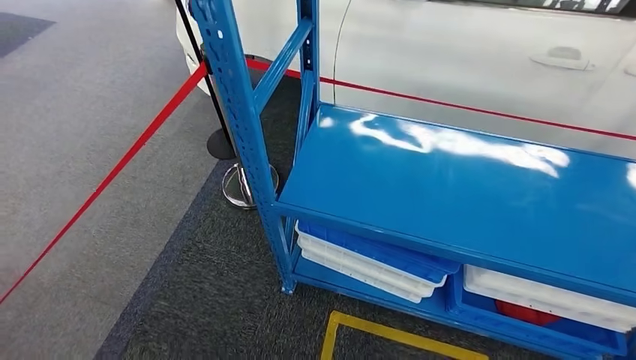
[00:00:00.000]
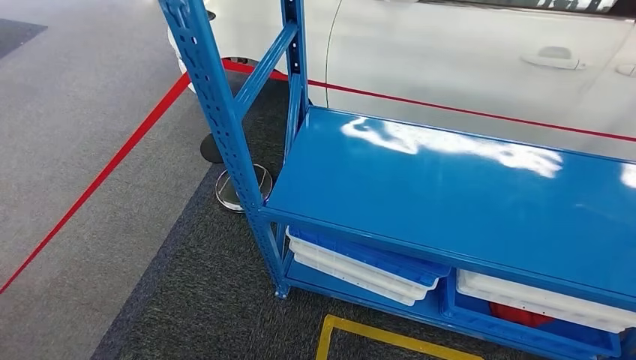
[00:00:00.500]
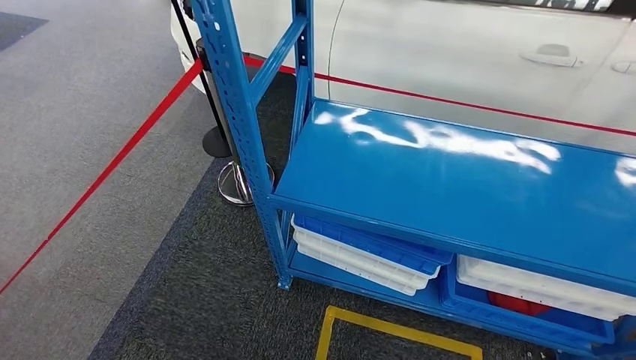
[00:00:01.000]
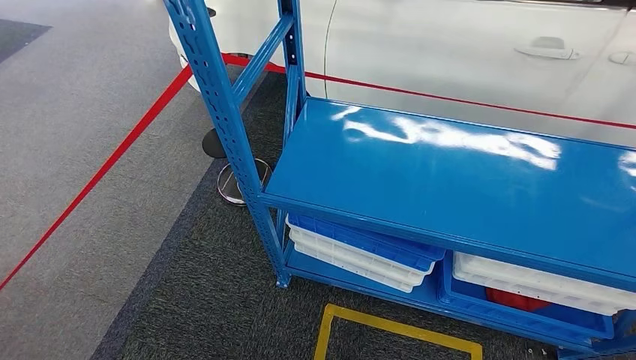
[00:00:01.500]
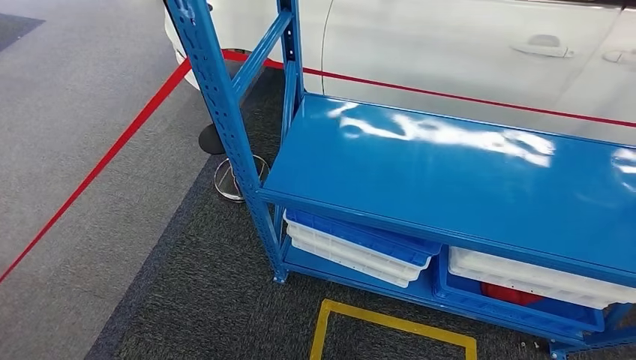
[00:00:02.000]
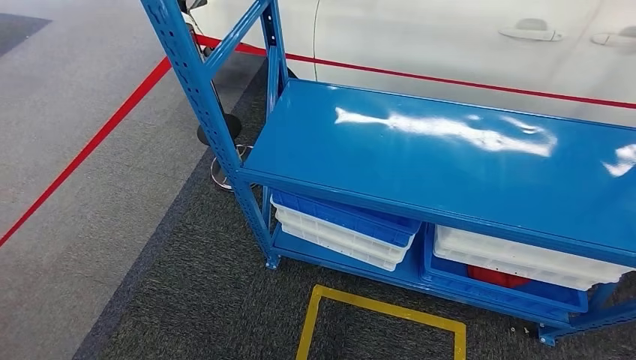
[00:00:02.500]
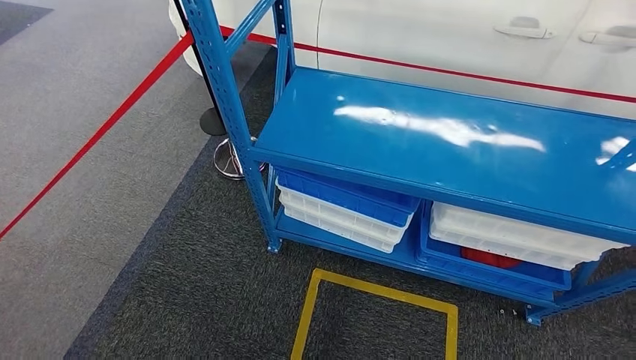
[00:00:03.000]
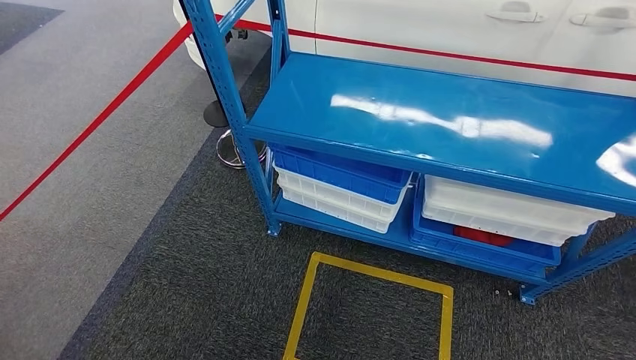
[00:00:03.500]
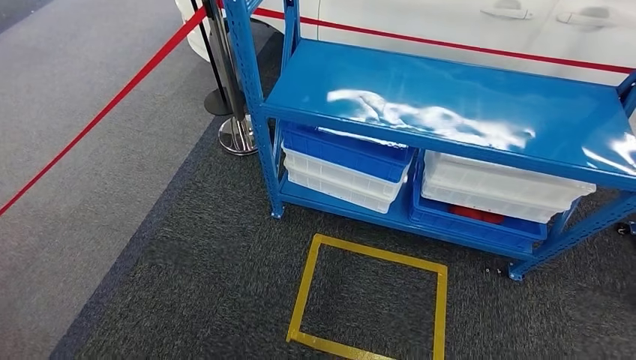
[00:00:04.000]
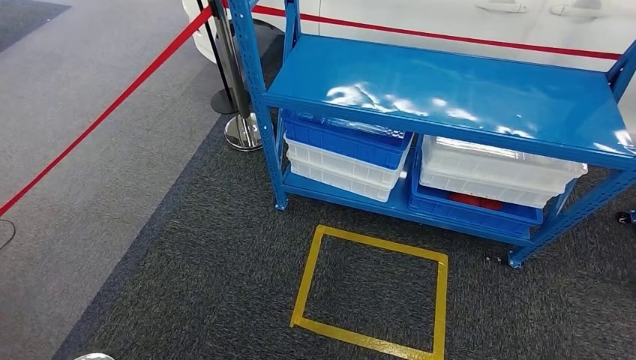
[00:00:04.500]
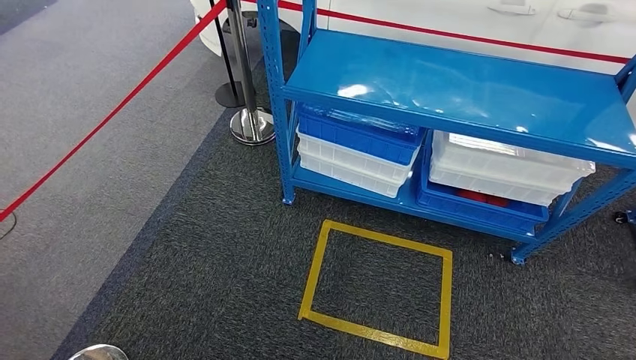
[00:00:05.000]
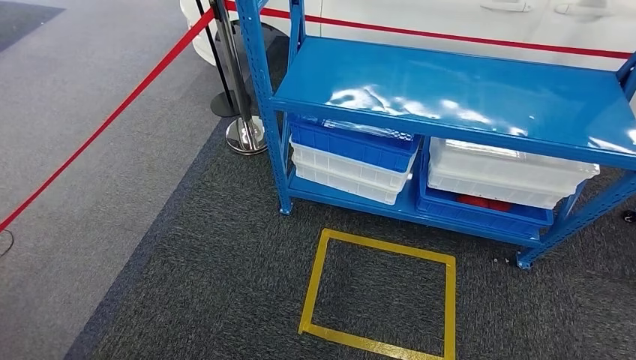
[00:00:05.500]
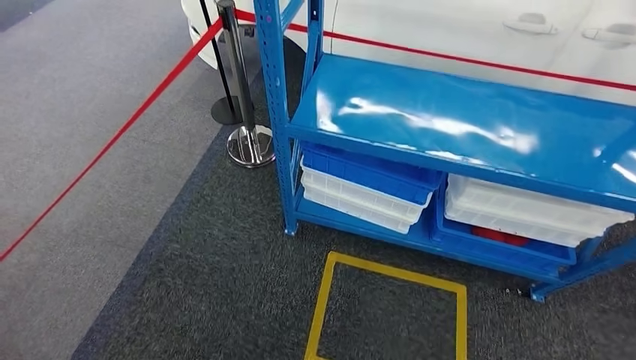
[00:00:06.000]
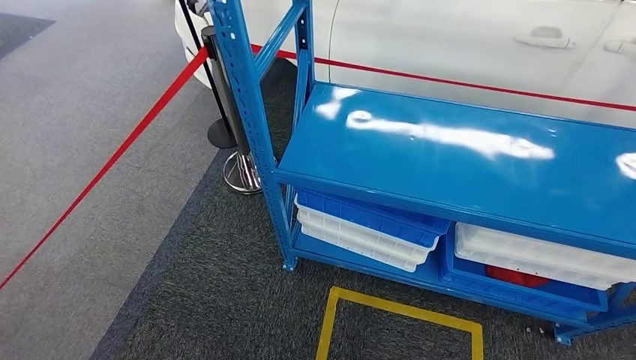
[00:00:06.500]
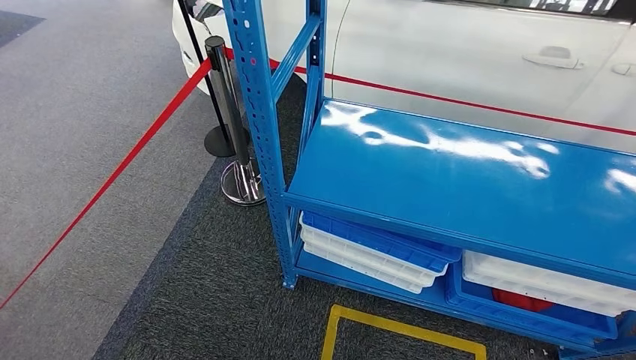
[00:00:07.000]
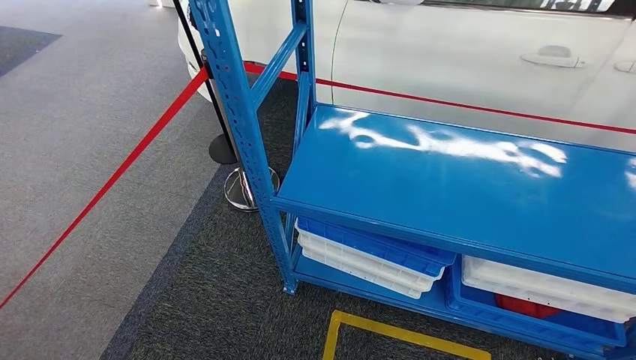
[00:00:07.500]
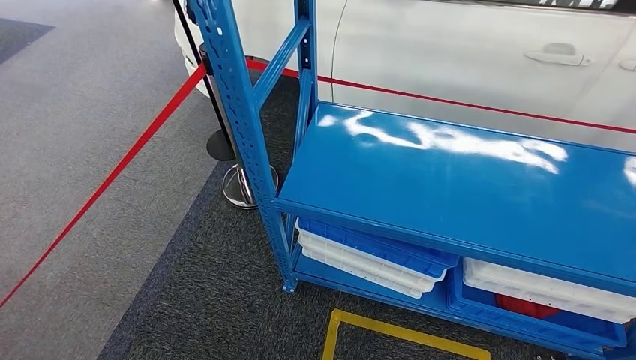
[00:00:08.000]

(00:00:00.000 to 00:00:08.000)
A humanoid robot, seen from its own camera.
Step, 00:00:00.000 - 00:00:07.500: Move to the initial position of the shelf.
